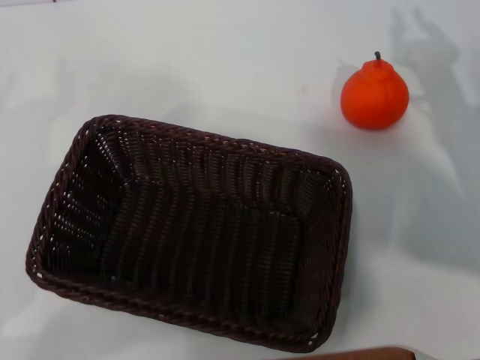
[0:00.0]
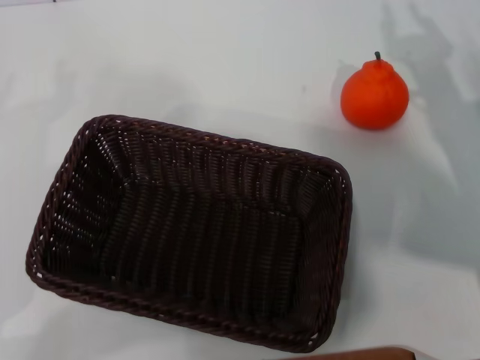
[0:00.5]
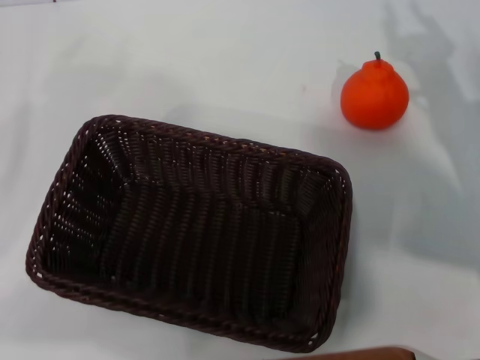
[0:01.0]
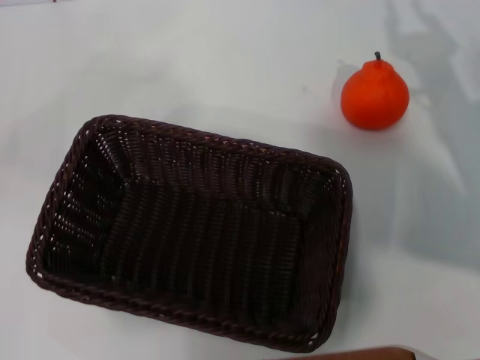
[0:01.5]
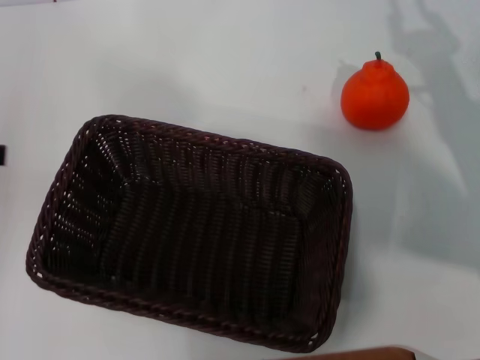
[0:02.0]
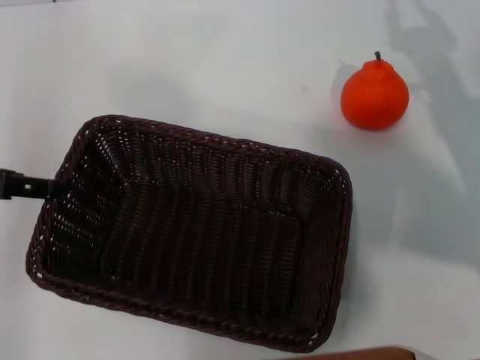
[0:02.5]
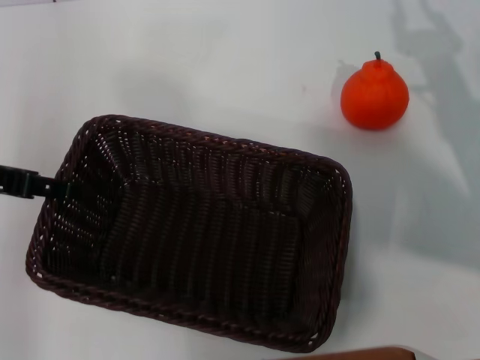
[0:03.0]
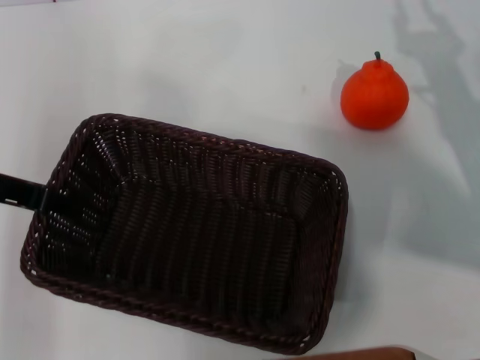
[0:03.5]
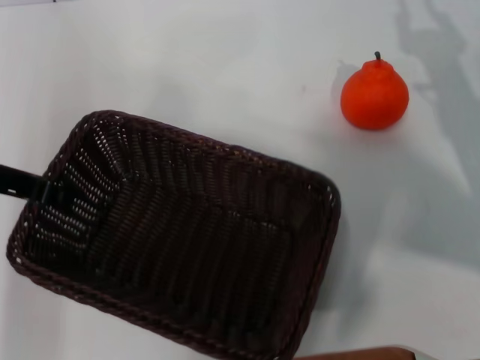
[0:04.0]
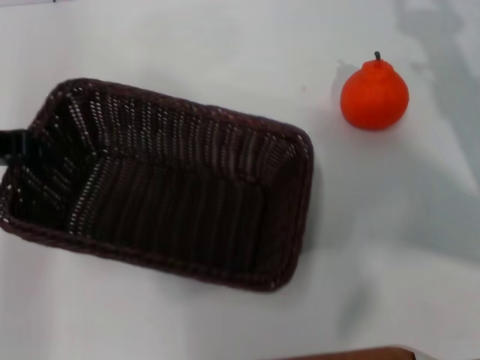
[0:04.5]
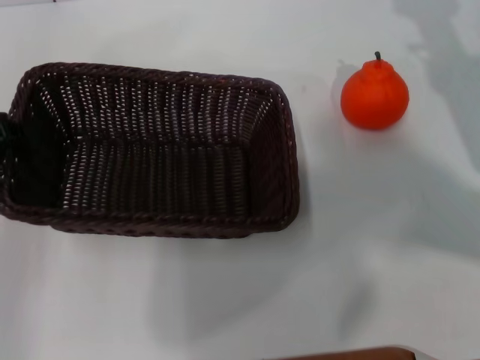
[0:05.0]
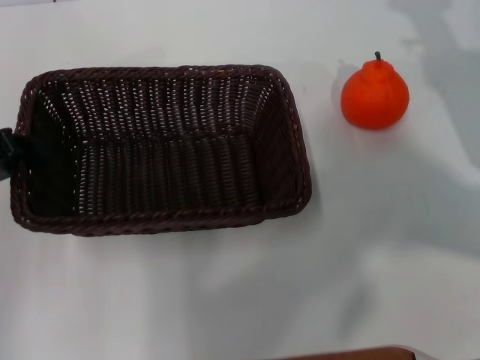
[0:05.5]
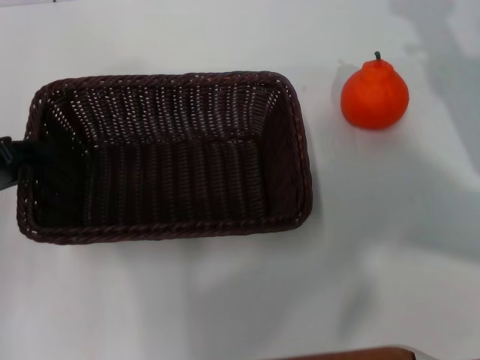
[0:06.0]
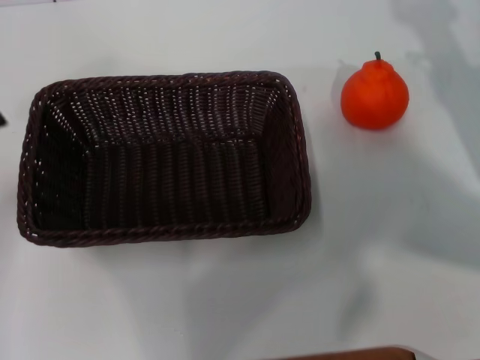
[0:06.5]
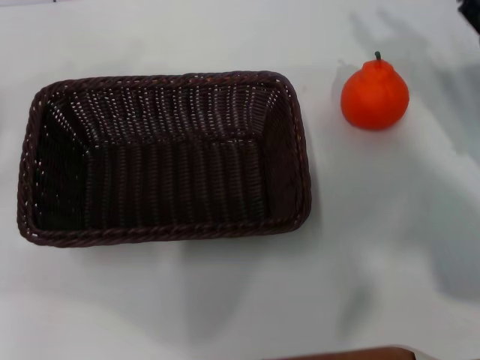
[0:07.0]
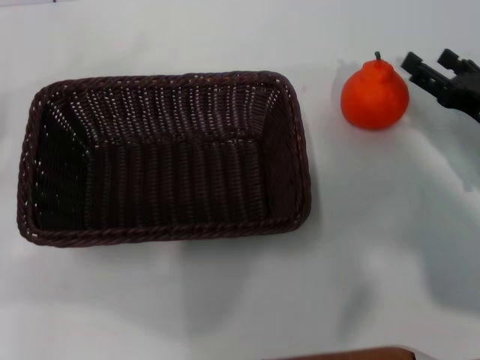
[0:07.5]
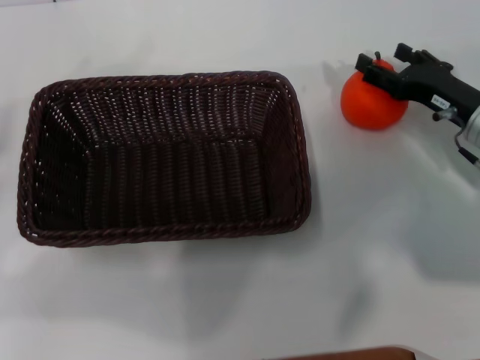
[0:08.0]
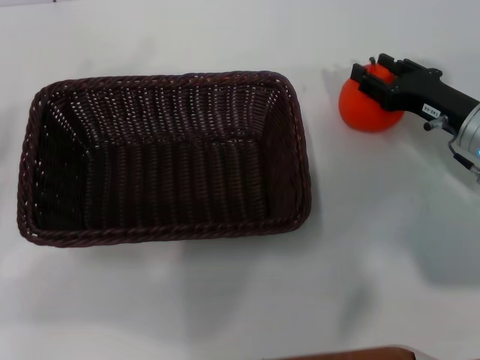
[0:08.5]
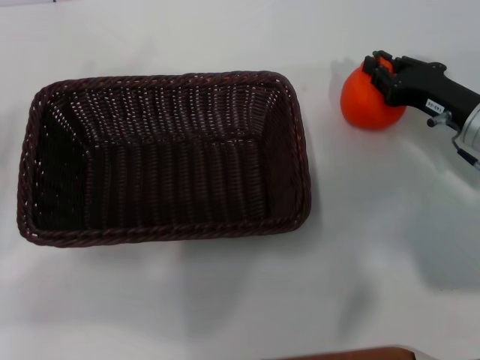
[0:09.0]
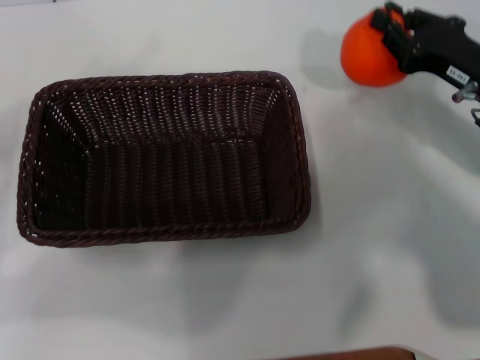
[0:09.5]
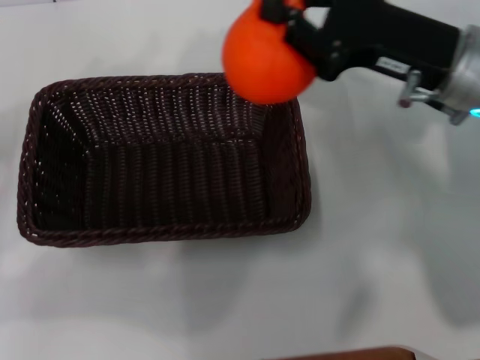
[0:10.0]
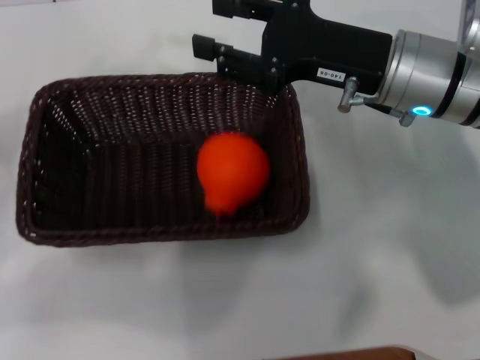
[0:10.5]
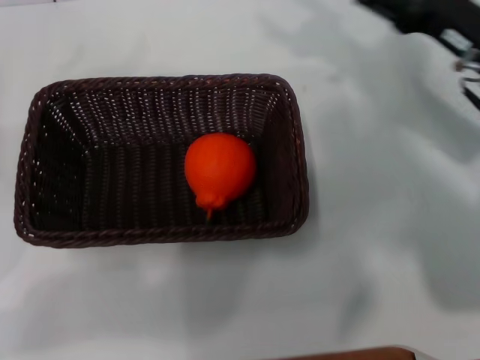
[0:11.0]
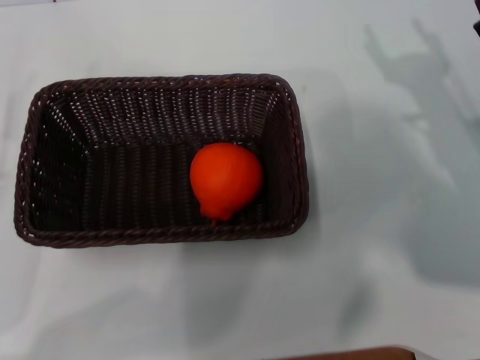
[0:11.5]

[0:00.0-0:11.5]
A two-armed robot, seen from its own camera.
Task of the whole recording: the left gripper pick up the black basket and place it horizontally in the middle of the table, the right gripper pick up the orange and place it into the black basket.
Step, 0.0 to 4.0 s: Pick up the dark basket with the left gripper.
Step, 4.5 to 6.0 s: Place the dark basket in the center of view with the left gripper.
Step, 6.5 to 9.5 s: Pick up the orange with the right gripper.
Step, 10.0 to 10.5 s: Place the orange into the dark basket with the right gripper.
0.0 to 2.0 s: The left gripper moves upward, approximately 20 cm.
2.0 to 4.0 s: The left gripper shifts some 10 cm to the right and downward, and closes up.
4.0 to 6.0 s: The left gripper shifts by about 5 cm. The right gripper changes place by about 5 cm.
6.0 to 7.5 s: The left gripper travels to the left by some 10 cm, and opens; the right gripper moves about 5 cm, and opens.
7.5 to 9.5 s: The right gripper is displaced upward by some 5 cm, and closes.
9.5 to 11.5 s: The left gripper moves downward, approximately 5 cm. The right gripper heads backward, covering approximately 5 cm, goes to the left and returns, roughly 10 cm each way, and opens its fingers.

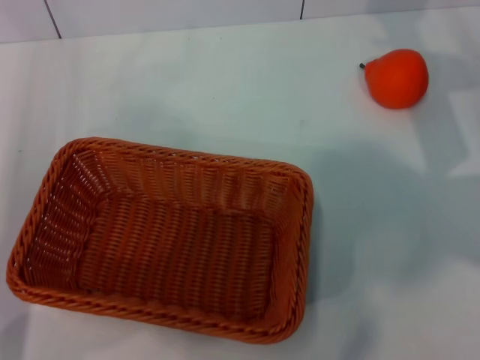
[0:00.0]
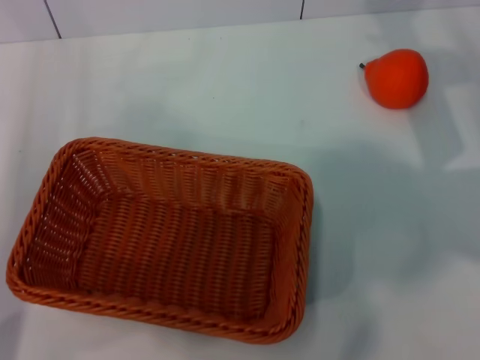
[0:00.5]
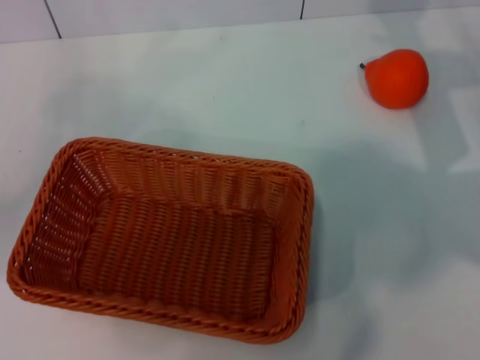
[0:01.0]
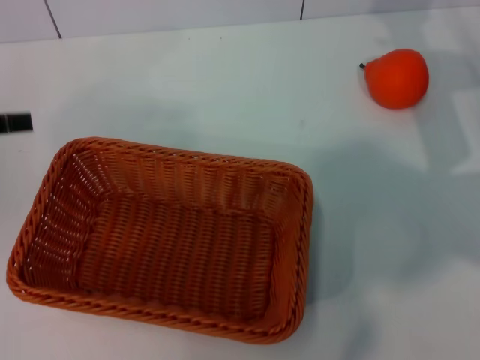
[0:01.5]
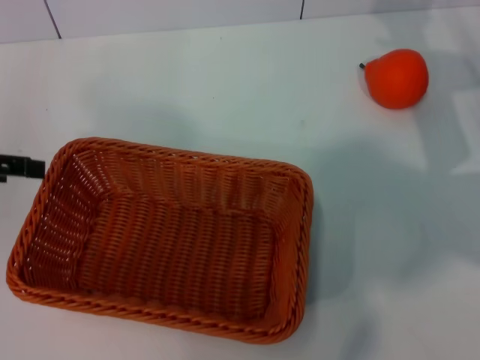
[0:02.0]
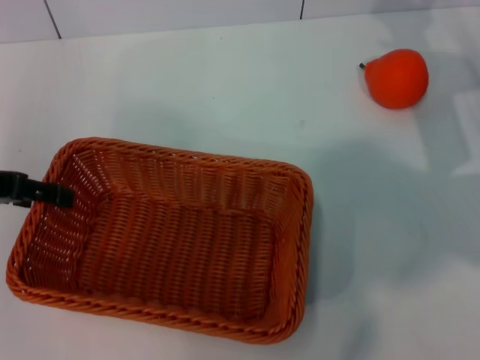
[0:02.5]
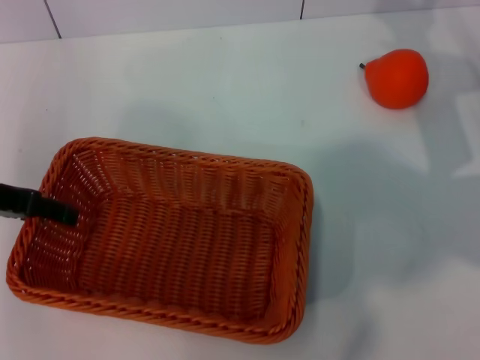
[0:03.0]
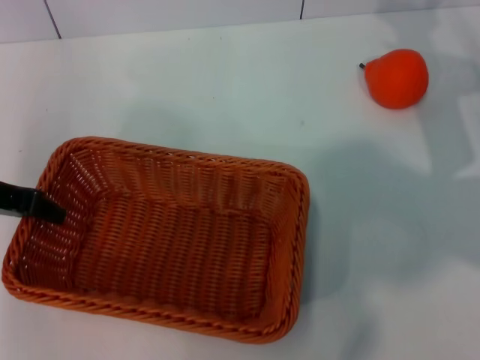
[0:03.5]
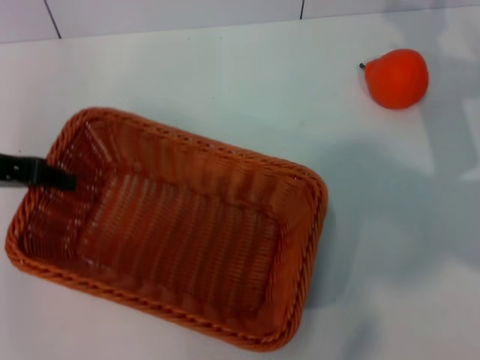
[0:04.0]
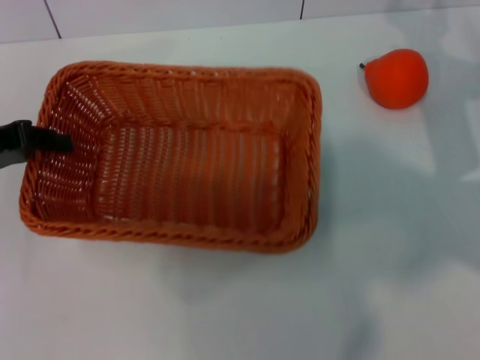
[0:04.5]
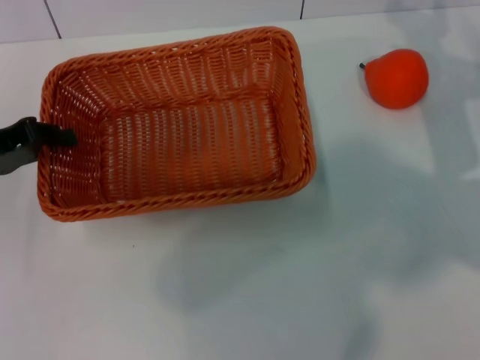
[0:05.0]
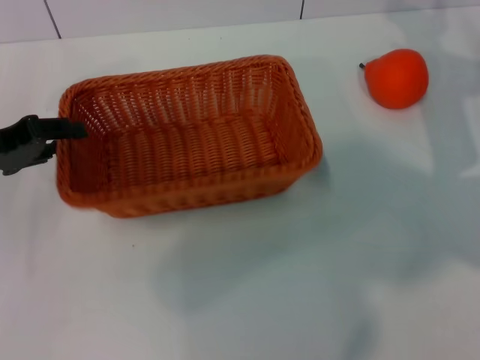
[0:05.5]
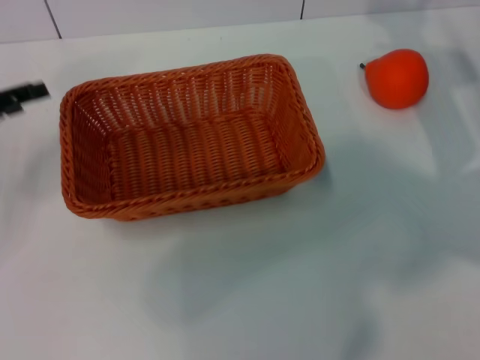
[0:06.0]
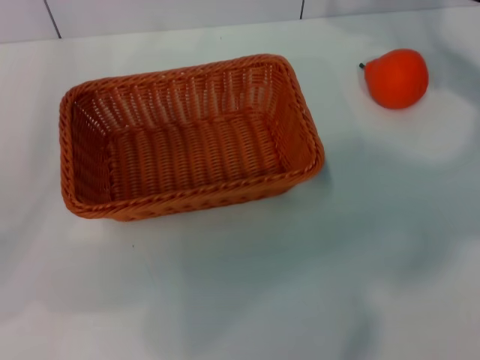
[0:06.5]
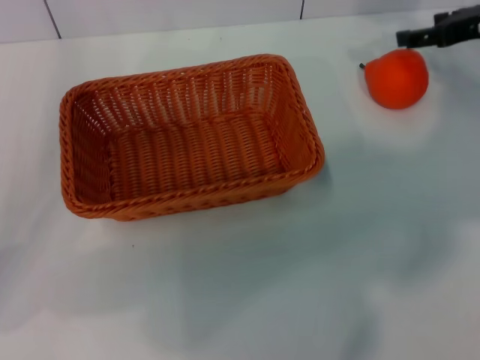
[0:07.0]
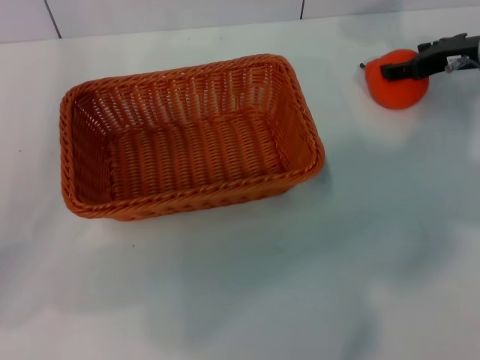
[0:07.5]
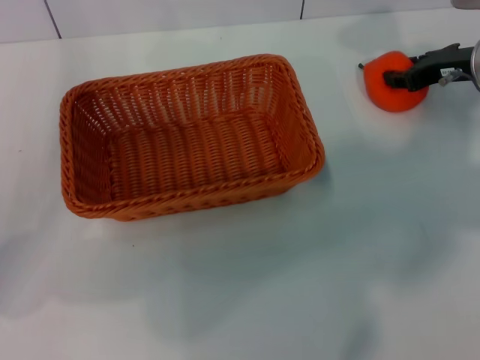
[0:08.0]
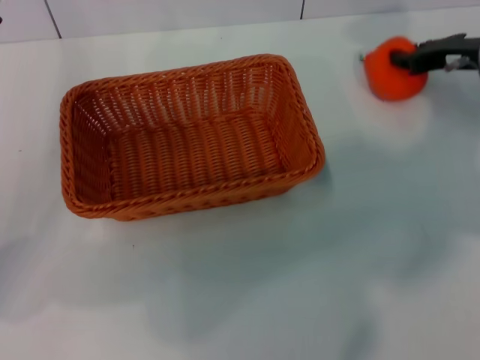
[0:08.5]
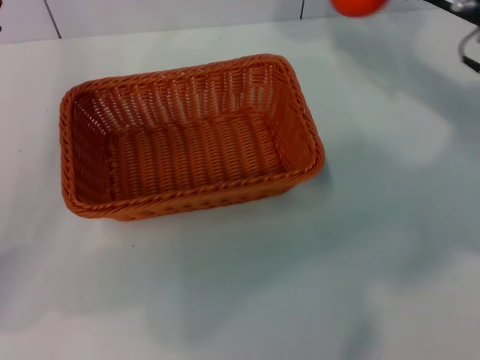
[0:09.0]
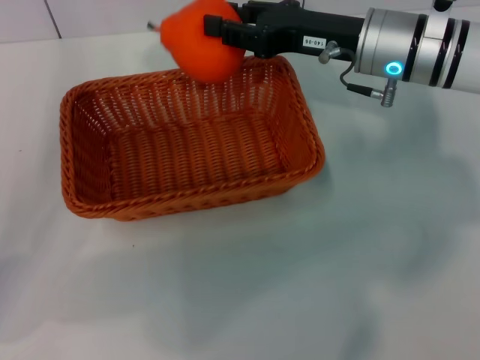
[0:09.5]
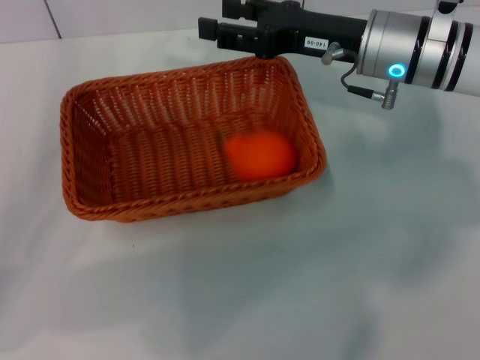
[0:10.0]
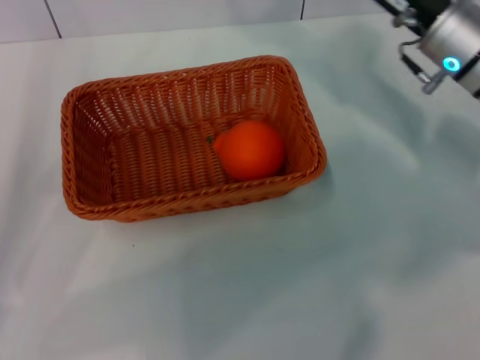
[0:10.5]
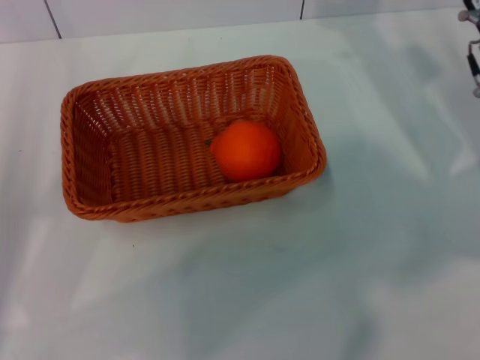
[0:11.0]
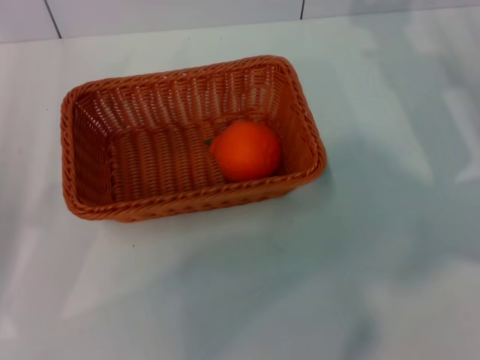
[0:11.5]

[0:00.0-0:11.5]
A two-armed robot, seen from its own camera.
Task of the whole recording: the left gripper pick up the yellow basket and place it horizontally in the middle of the table, the right gripper pick up the orange and place it into the yellow basket.
Step, 0.0 to 4.0 s: Pick up the light basket with the left gripper.
Step, 4.5 to 5.5 s: Place the light basket in the center of view with the left gripper.
Step, 6.5 to 8.5 s: Pick up the orange with the right gripper.
Step, 9.0 to 10.0 s: Place the orange into the light basket with the right gripper.
0.0 to 2.0 s: The left gripper travels upward, forward and to the left by roughly 15 cm.
2.0 to 4.0 s: The left gripper closes up.
4.0 to 6.0 s: The left gripper moves roughly 5 cm, and opens up.
6.0 to 7.5 s: The left gripper shifts by some 5 cm.
7.5 to 9.5 s: The right gripper travels to the left by roughly 15 cm, and closes up.
9.5 to 11.5 s: The left gripper travels backward by roughly 5 cm; the right gripper goes approximately 10 cm to the right, and opens up.

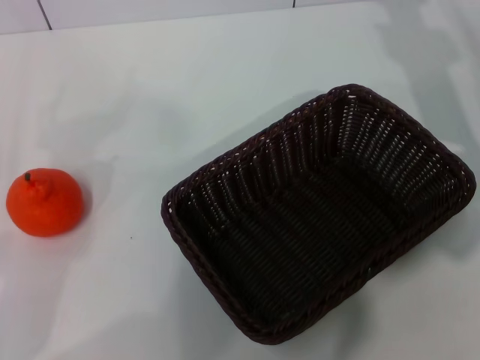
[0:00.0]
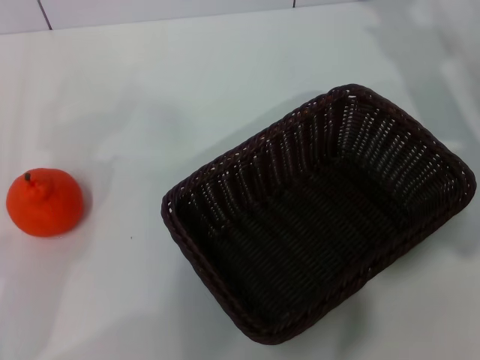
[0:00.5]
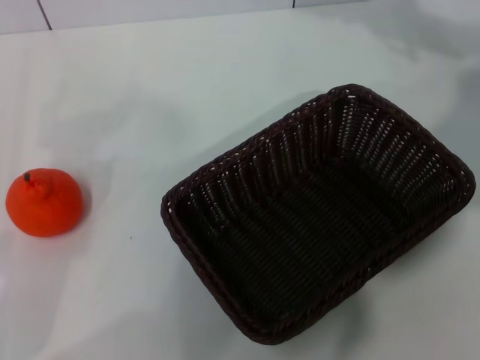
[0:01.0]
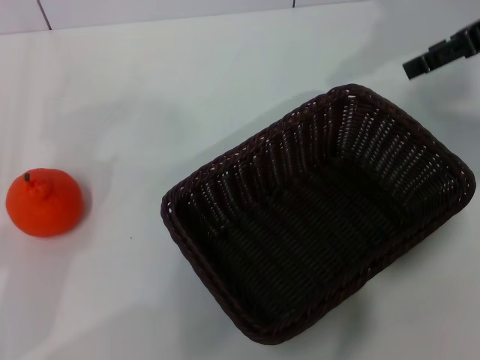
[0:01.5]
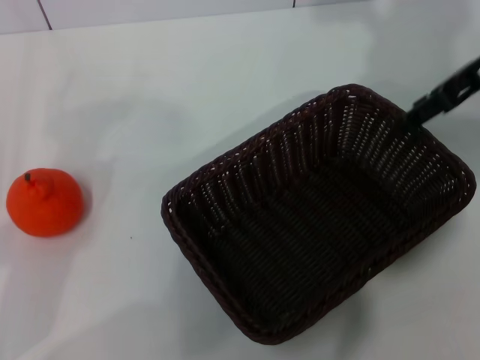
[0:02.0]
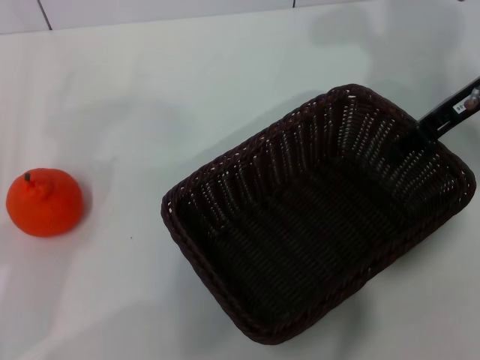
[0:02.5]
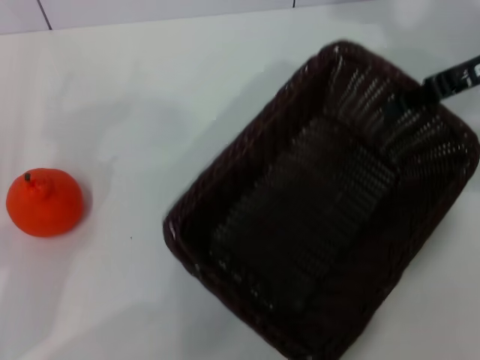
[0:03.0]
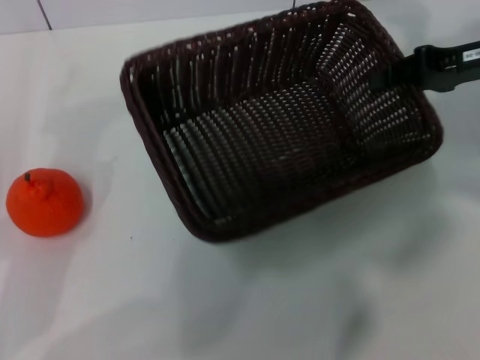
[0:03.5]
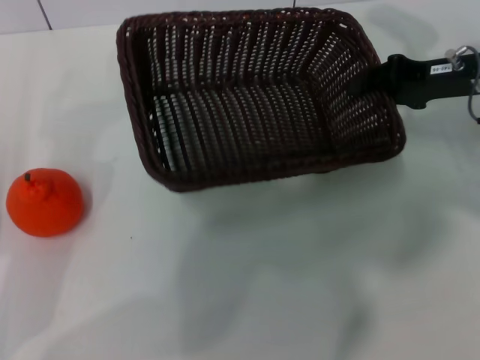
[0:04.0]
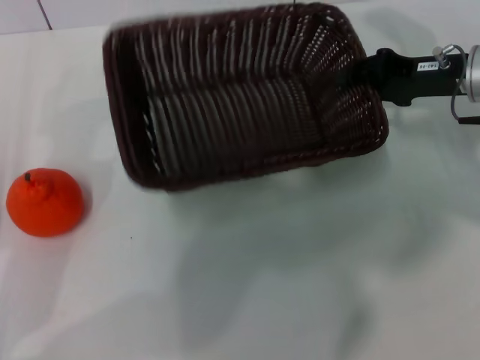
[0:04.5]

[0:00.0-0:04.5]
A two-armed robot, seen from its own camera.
Task of the whole recording: the right gripper pick up the black basket and place it horizontally in the middle of the table, the left gripper pick up the orange and place it into the black basket.
Step, 0.0 to 2.5 s: Pick up the dark basket with the right gripper.
0.0 to 2.0 s: The right gripper shifts approximately 10 cm upward.
2.0 to 4.5 s: The right gripper moves downward, roughly 10 cm, and closes up.
